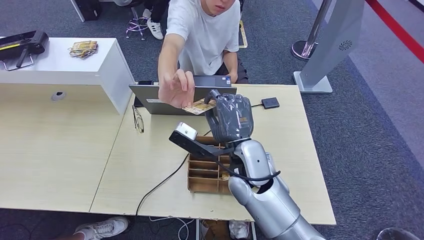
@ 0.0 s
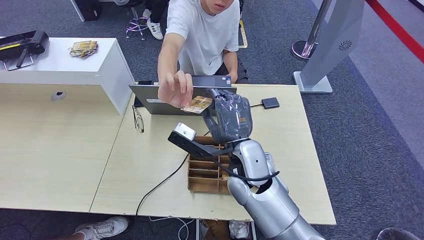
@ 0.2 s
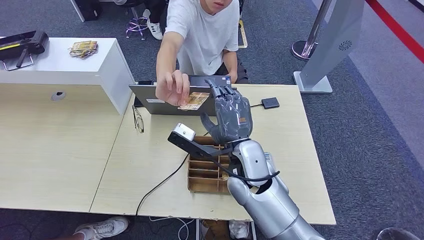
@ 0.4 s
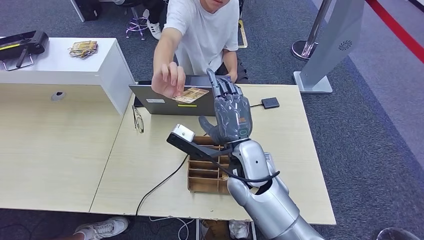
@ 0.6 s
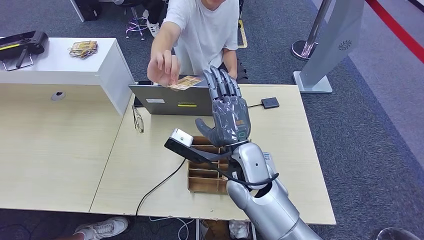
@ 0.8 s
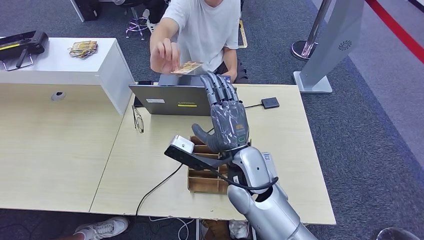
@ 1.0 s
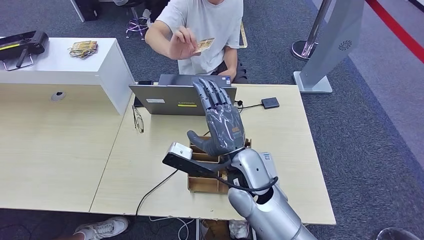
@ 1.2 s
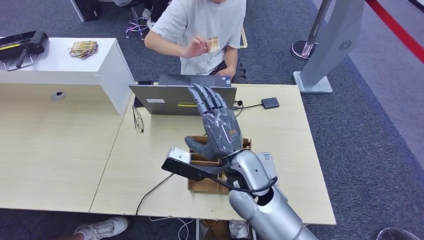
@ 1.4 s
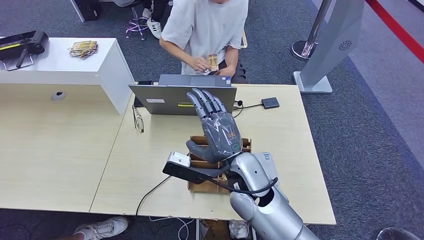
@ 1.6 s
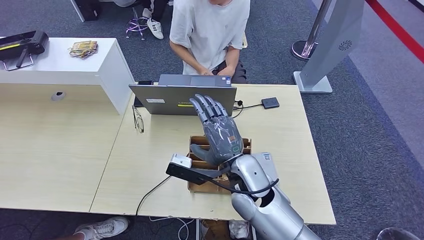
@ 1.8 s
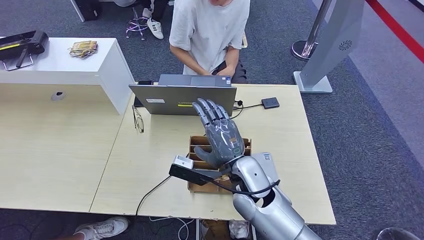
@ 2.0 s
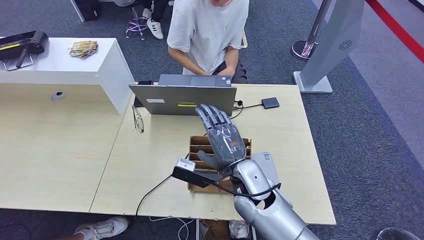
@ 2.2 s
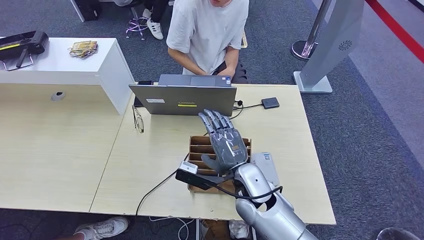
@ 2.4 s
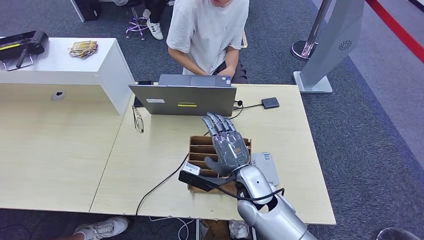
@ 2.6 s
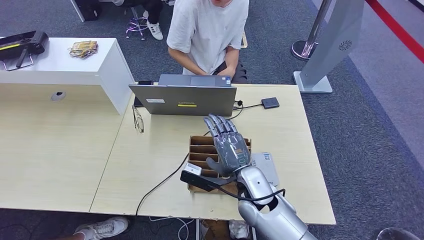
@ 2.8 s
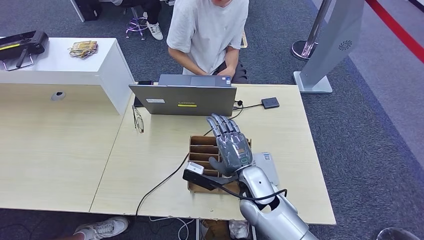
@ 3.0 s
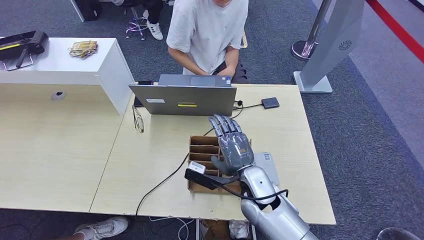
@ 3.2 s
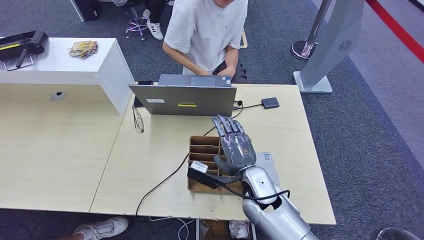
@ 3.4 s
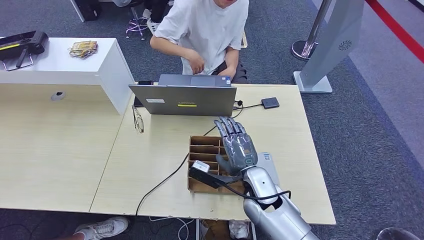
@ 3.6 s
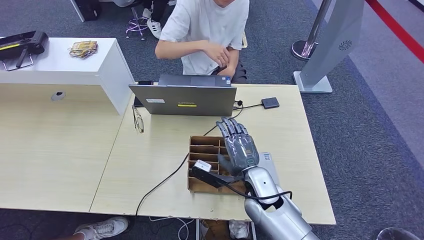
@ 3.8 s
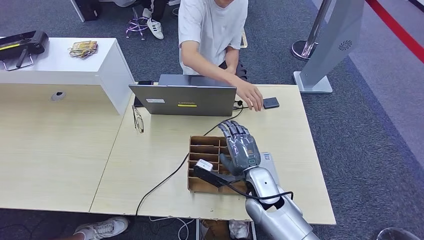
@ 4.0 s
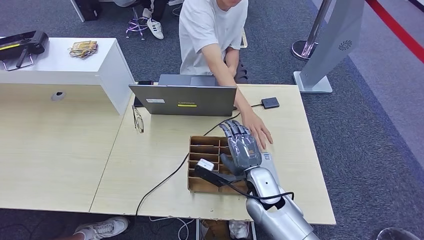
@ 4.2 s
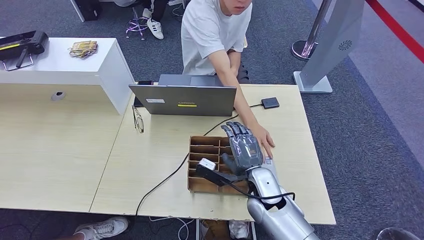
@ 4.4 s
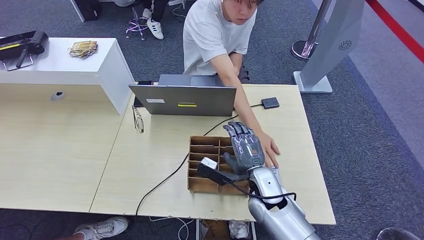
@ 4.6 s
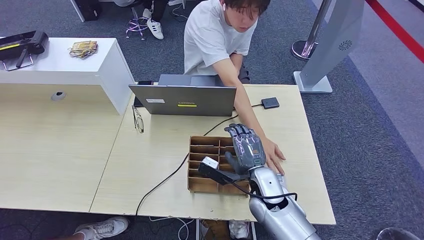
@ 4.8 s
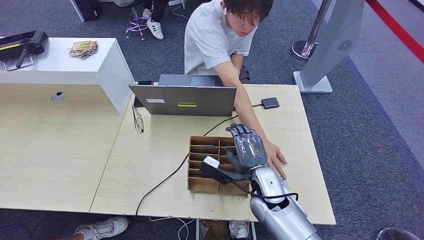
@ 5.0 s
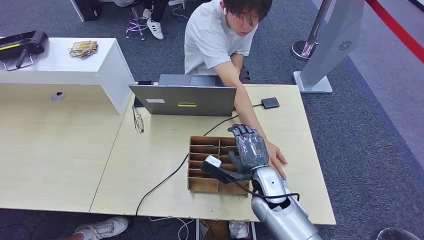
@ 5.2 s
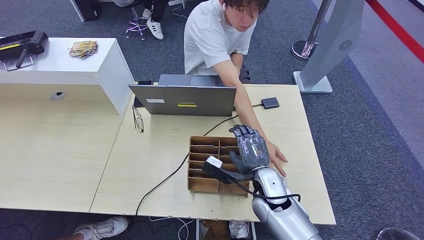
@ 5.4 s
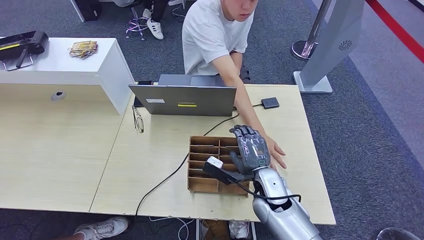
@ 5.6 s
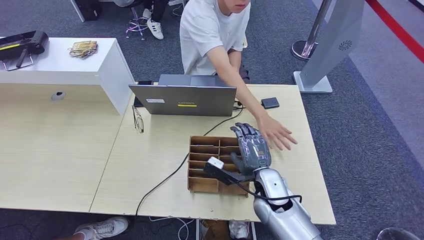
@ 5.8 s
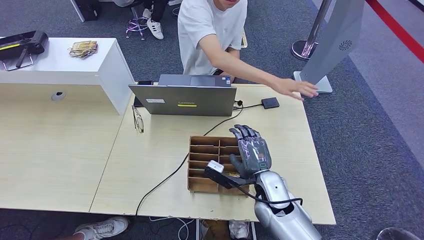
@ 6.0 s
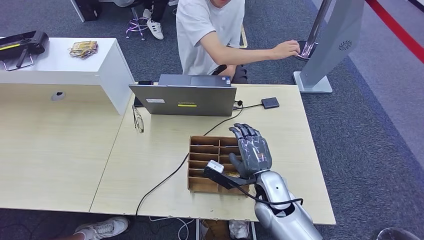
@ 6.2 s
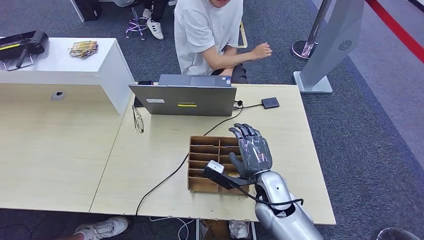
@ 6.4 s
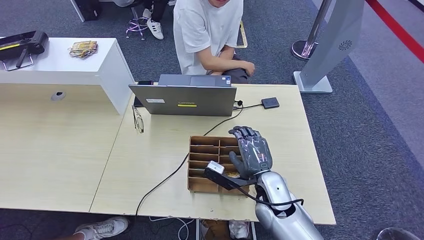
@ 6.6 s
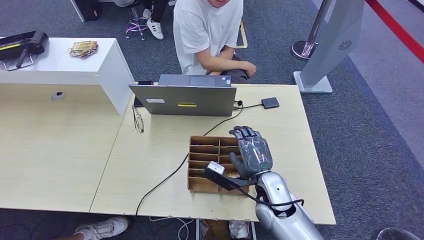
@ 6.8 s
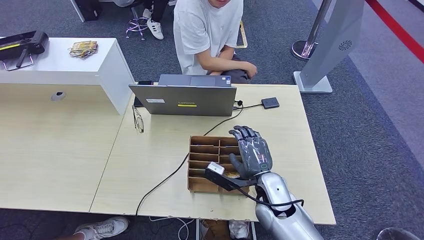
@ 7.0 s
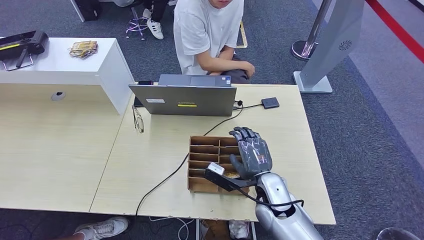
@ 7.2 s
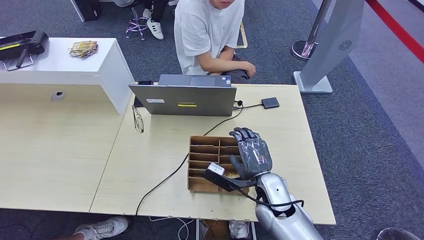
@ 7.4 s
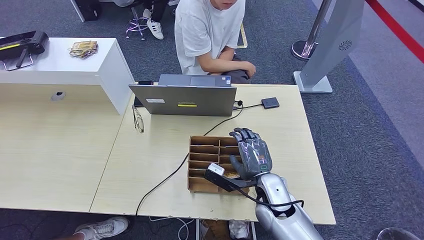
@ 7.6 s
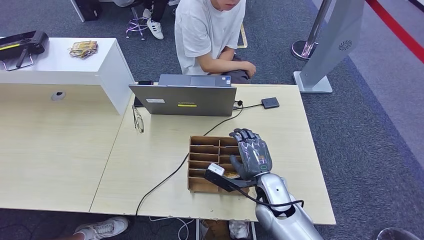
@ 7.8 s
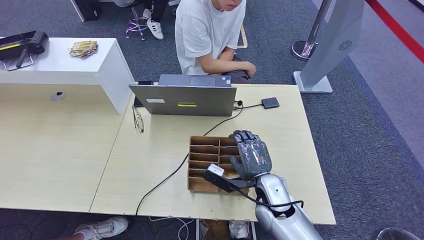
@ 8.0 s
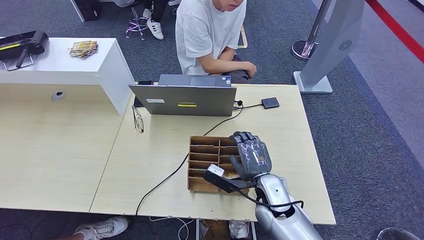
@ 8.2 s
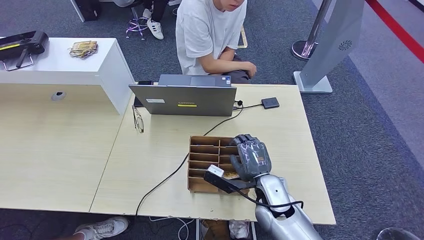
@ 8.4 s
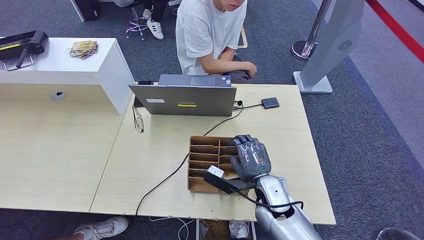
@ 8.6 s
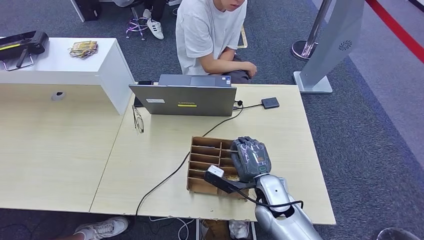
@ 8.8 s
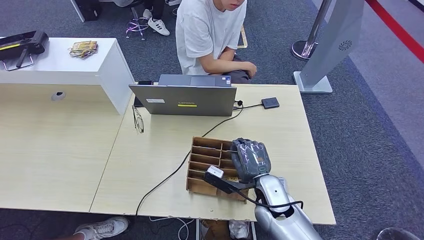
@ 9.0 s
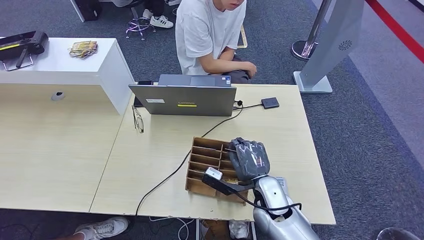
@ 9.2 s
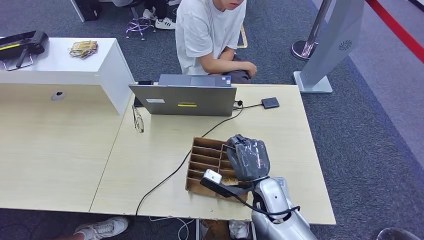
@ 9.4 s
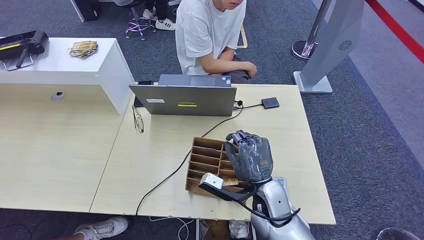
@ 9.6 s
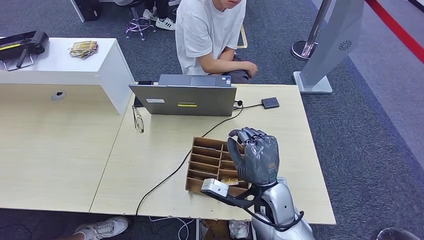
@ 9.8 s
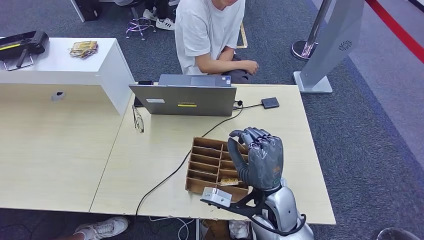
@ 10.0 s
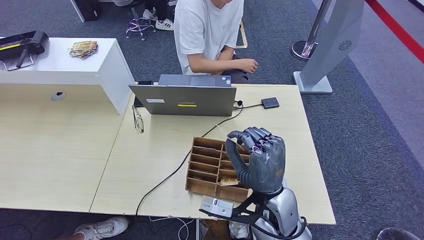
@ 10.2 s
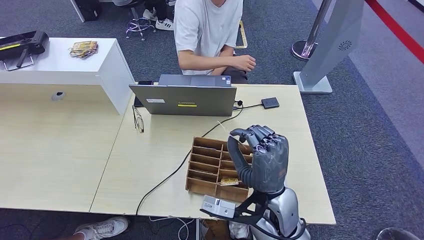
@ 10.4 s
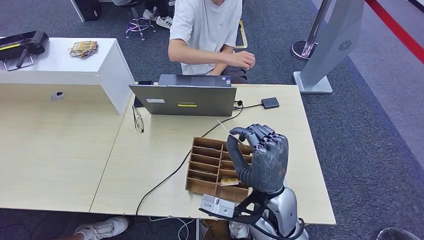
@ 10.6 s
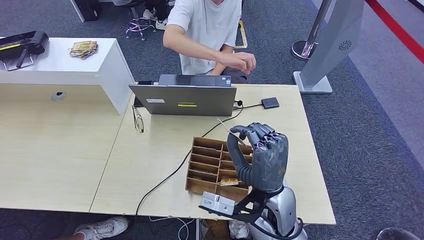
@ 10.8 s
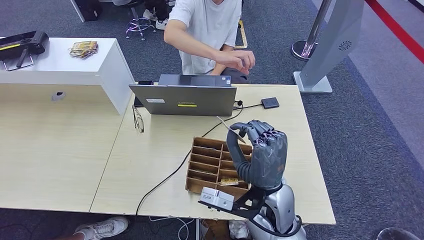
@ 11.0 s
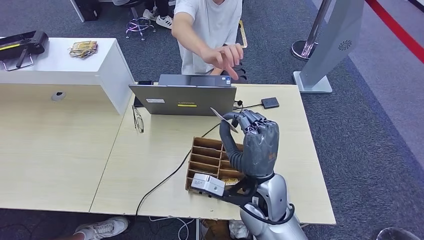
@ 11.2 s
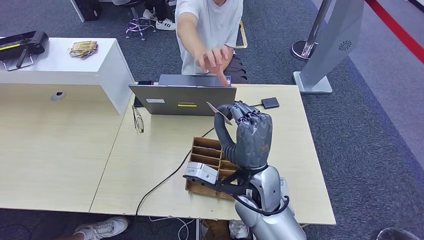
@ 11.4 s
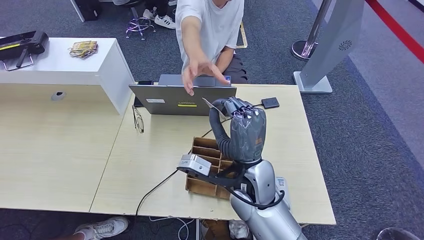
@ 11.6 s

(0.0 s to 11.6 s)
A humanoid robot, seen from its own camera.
Step, 8.6 s - 11.4 s: Pick up the room key from the key card box.
0.0 s - 1.4 s: The hands make only small movements.
1.4 s - 2.8 s: The right hand goes about 10 cm downward.
2.8 s - 5.8 s: The hands move only a little.
5.8 s - 7.2 s: Both hands stay about where they are.
7.2 s - 8.8 s: Both hands stay about where they are.
8.8 s - 10.2 s: The right hand heads upward, covering some 10 cm.
10.2 s - 11.6 s: The right hand ends up approximately 5 cm from where it was.

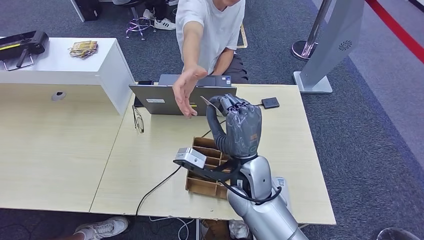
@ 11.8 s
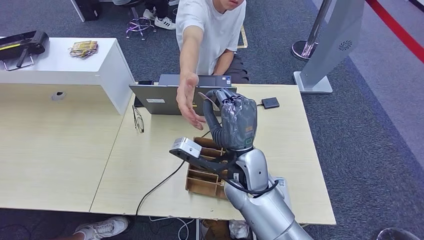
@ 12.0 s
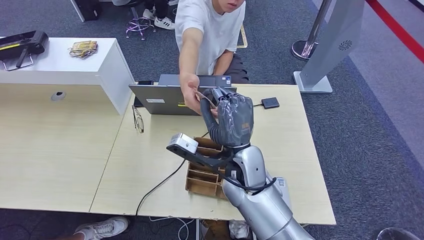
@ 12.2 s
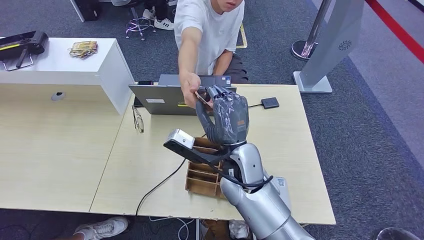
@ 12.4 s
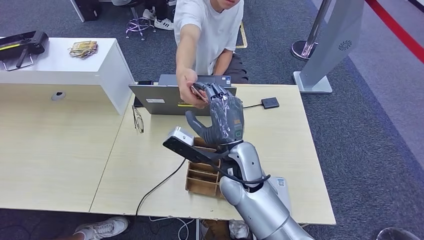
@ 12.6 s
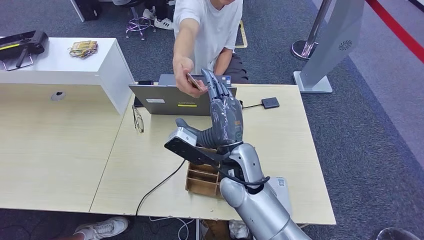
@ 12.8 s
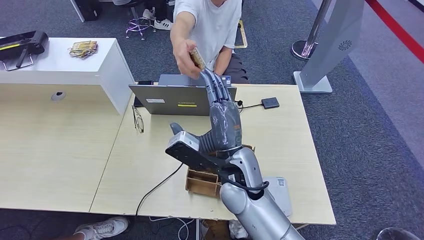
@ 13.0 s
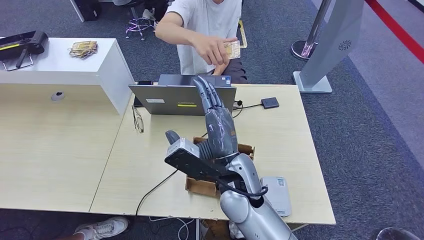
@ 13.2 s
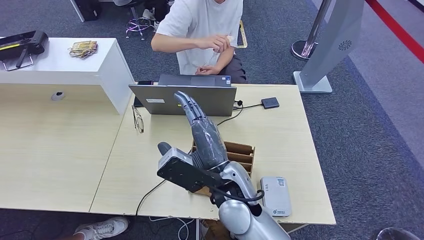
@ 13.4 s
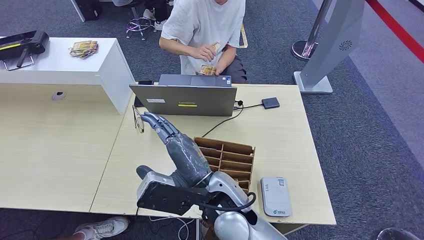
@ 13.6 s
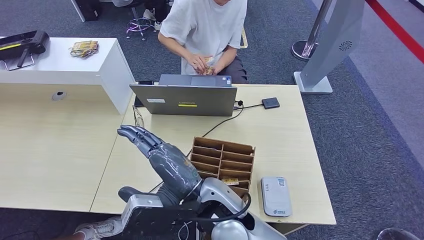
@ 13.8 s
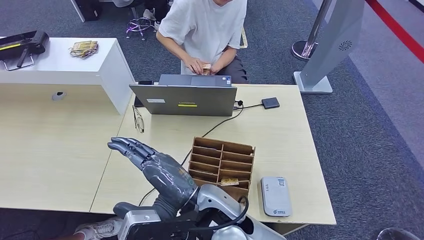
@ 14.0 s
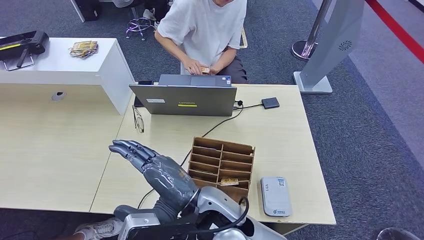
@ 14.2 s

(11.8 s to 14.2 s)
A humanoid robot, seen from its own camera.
Step, 11.8 s - 14.2 s: Hand the room key to the person.
13.0 s - 14.2 s: The right hand is displaced backward and to the left by approximately 10 cm.

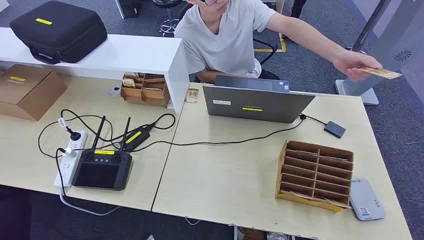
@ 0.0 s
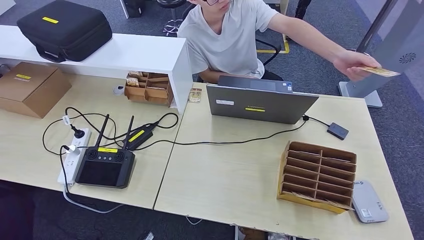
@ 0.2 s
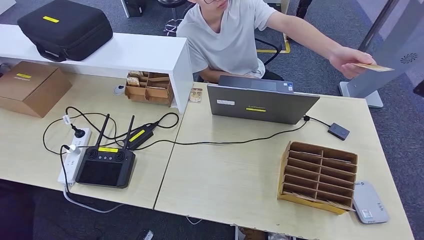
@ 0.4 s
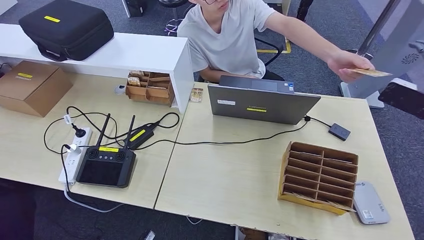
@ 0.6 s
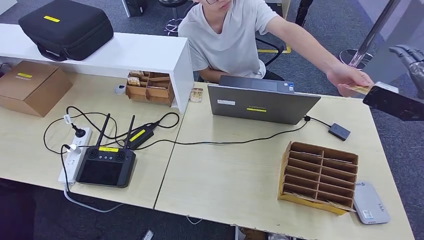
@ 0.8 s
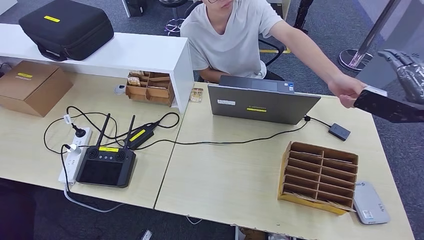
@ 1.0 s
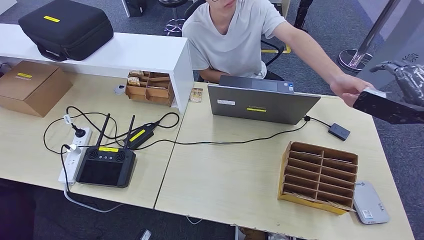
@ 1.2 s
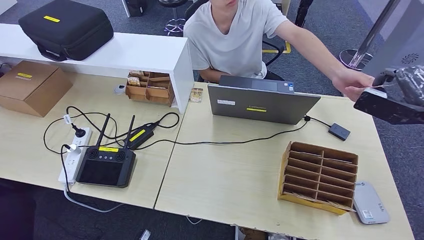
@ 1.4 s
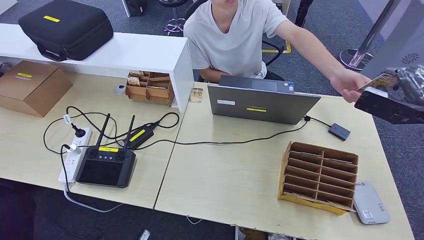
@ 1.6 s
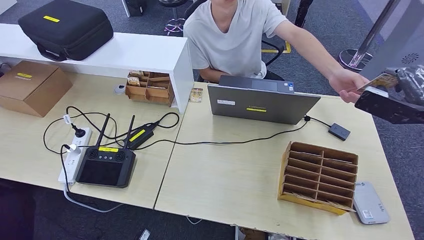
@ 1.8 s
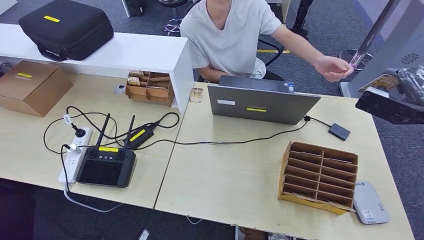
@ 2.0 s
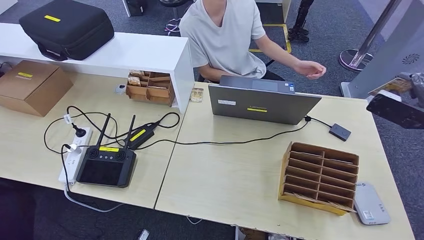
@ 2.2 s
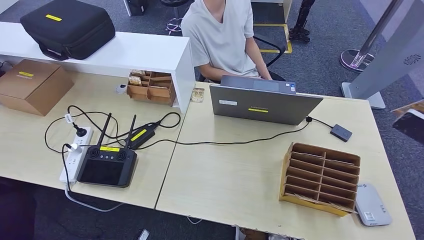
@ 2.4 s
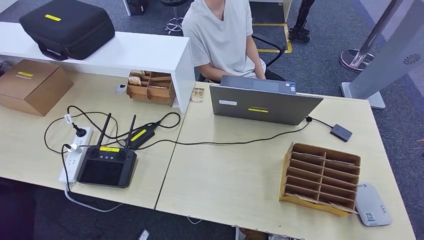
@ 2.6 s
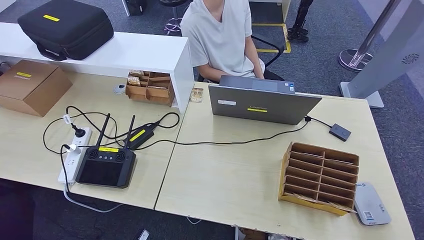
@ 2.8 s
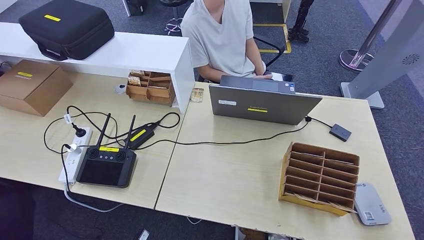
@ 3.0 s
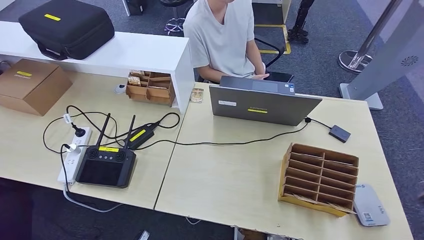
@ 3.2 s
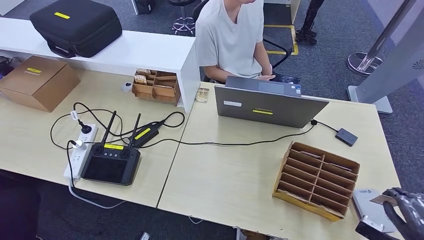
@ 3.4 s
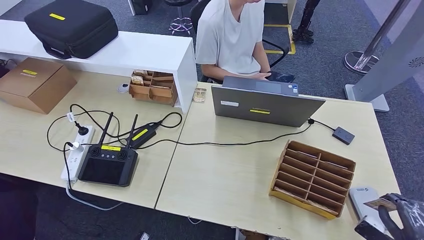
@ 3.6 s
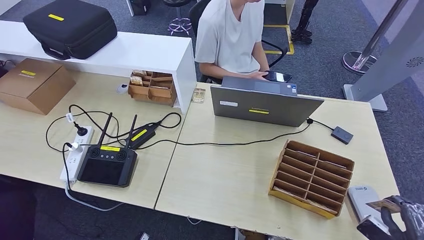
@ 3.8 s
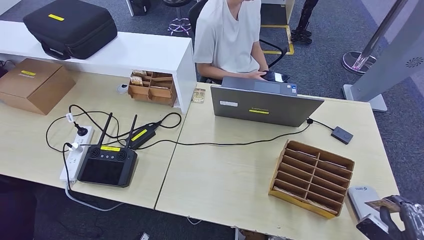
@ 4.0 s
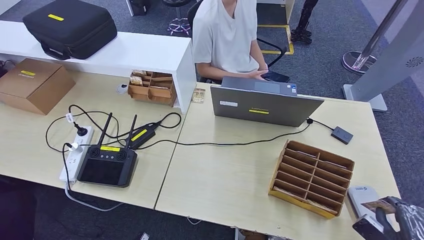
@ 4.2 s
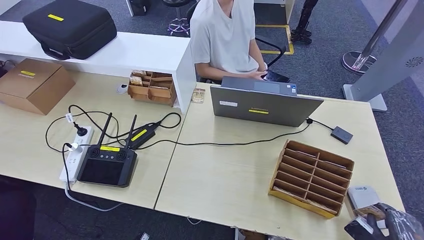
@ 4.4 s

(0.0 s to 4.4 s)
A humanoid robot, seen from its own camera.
Step, 0.0 s - 2.2 s: Take the ID card from the person's hand.
Step, 2.4 s - 3.8 s: Place the ID card on the card reader.
1.4 s - 3.0 s: The right hand goes about 25 cm to the right, backward and downward.
3.0 s - 4.4 s: The right hand is displaced downward and to the left by roughly 20 cm.
